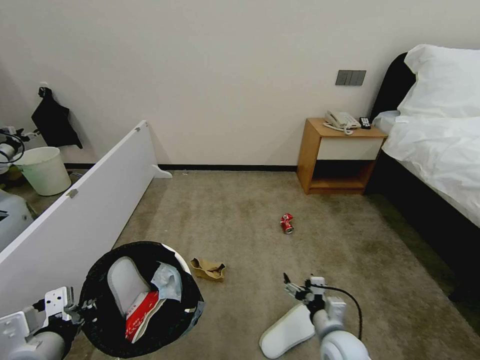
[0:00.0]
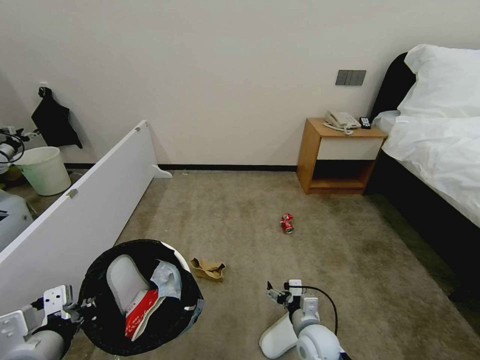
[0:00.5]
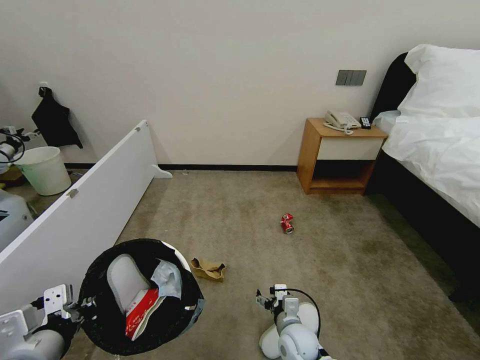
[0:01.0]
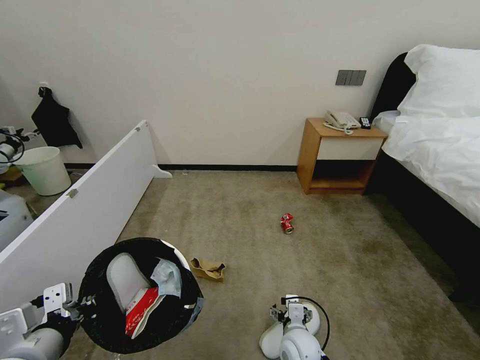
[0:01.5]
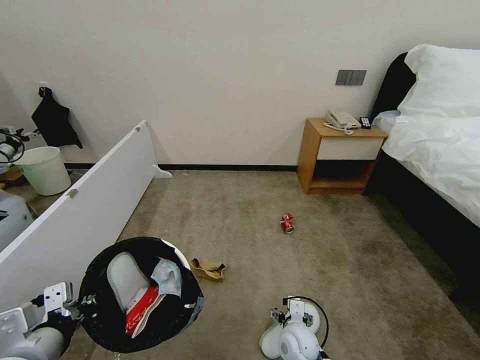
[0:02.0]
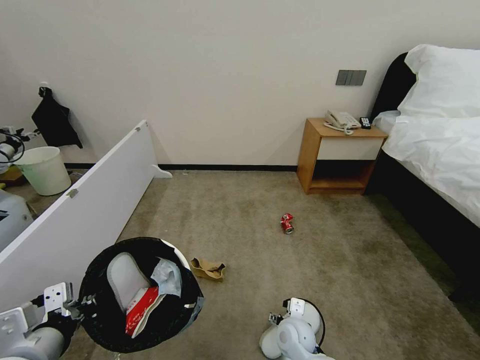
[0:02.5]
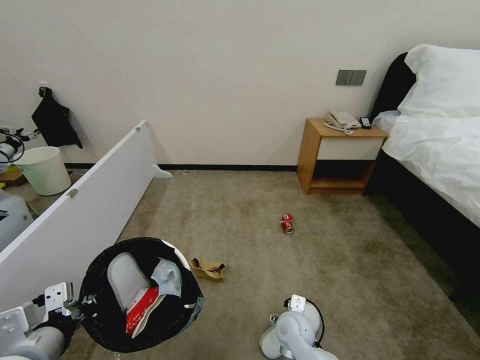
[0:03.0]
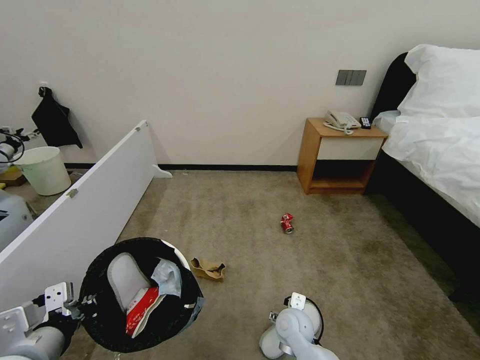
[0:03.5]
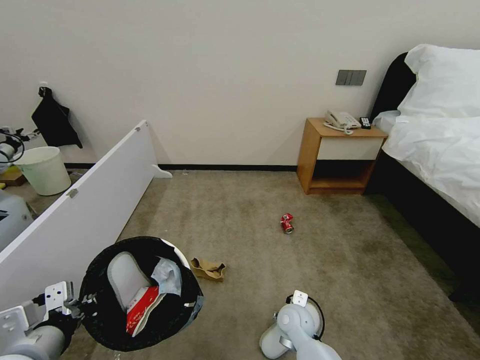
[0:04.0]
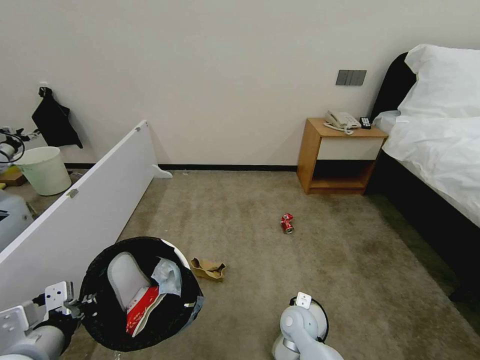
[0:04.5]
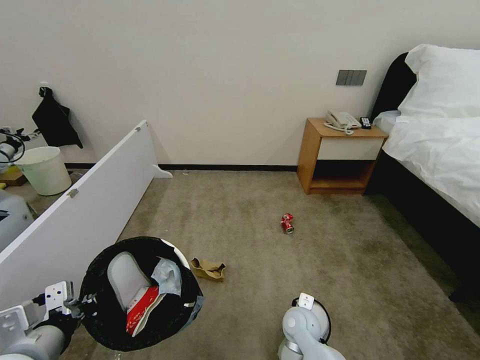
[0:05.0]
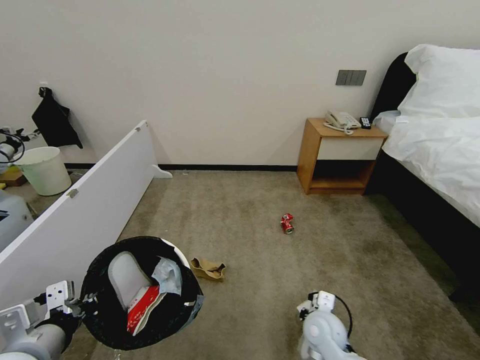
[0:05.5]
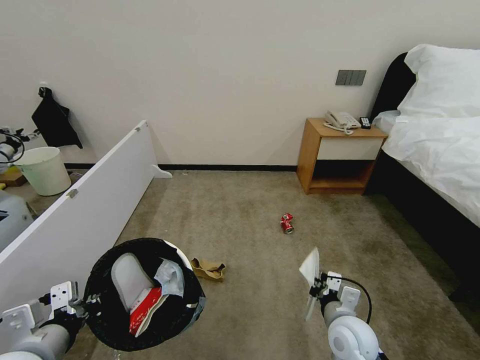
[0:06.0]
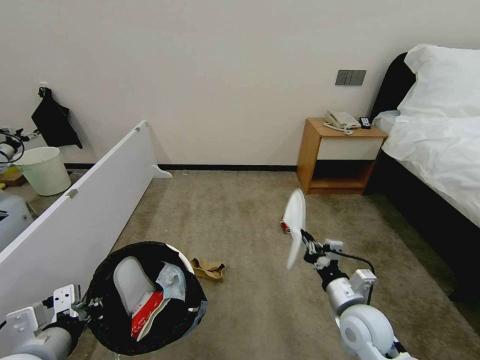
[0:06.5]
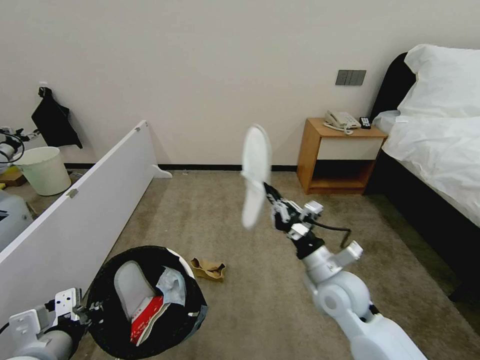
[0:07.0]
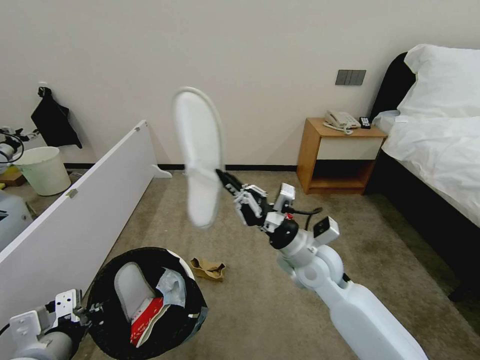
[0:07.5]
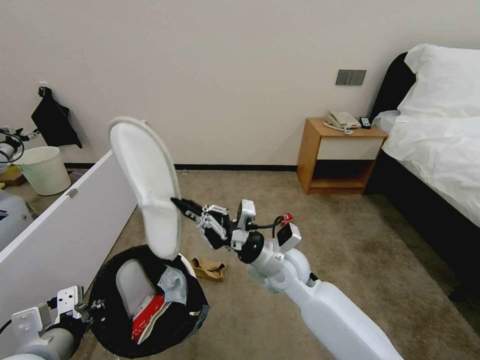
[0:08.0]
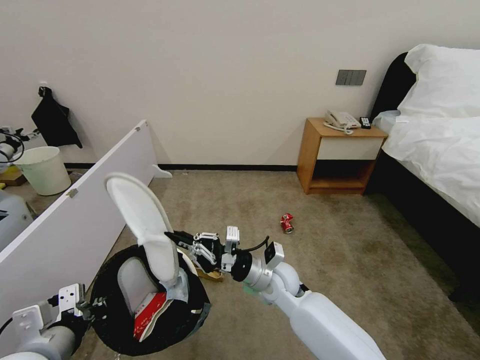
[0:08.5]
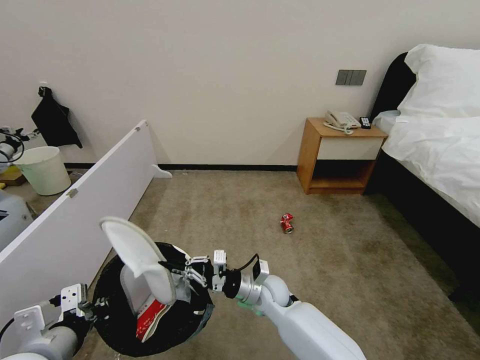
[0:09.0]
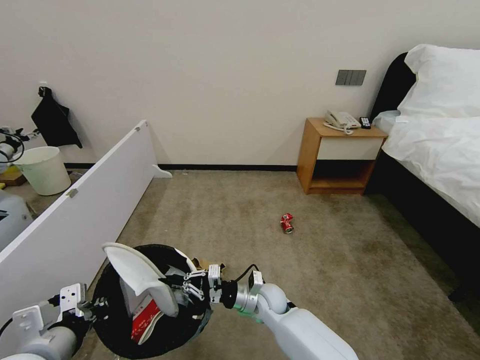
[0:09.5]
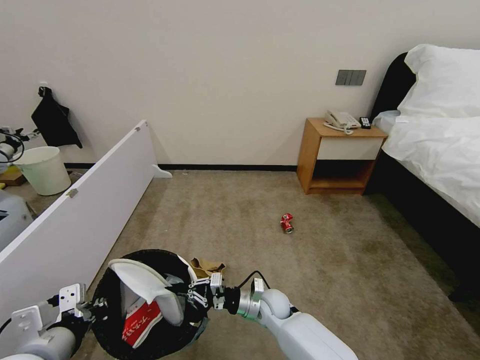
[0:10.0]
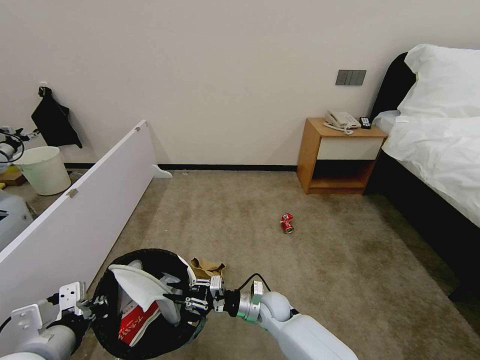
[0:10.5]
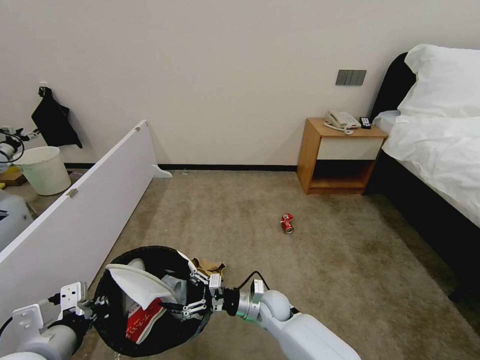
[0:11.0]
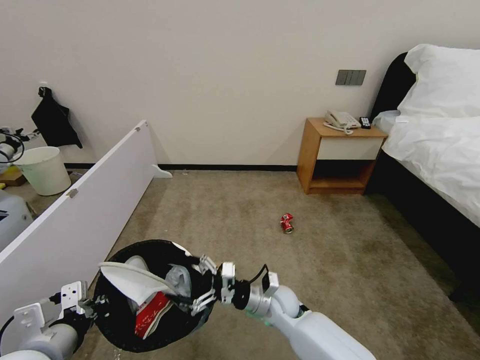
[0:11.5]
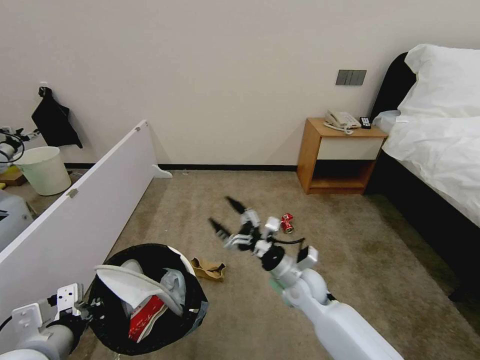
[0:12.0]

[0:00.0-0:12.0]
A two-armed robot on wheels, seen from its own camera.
Task of the whole recording: Pick up the trash bin, then pick up the garbage from the floor and place it into the trash bin.
0.0 to 2.0 s: The right gripper heads to the left, covering some 10 cm.
4.0 to 6.0 s: The right gripper goes some 15 cm to the right, upward and backward, and closes up.
6.0 to 8.0 s: The right gripper moves to the left, upward and forward, approximately 20 cm.
8.0 to 10.0 s: The right gripper goes about 20 cm downward.
10.0 to 12.0 s: The right gripper moves upward and to the right, approximately 15 cm, and opens.

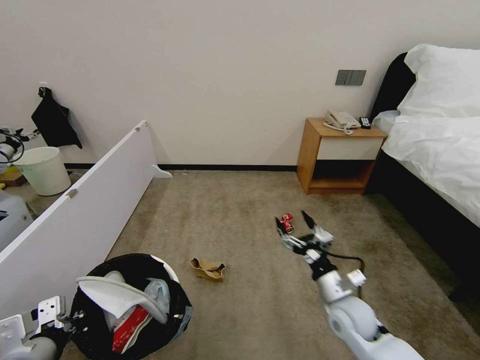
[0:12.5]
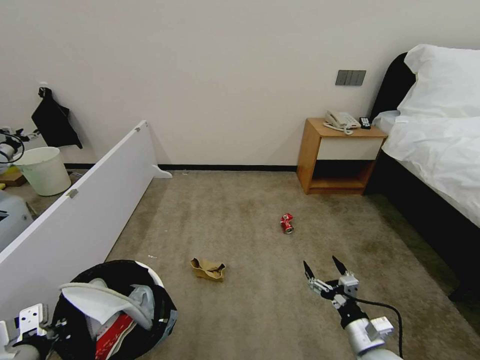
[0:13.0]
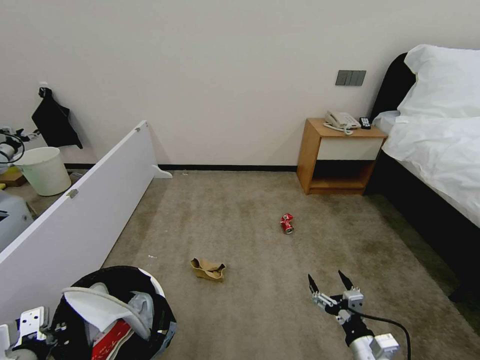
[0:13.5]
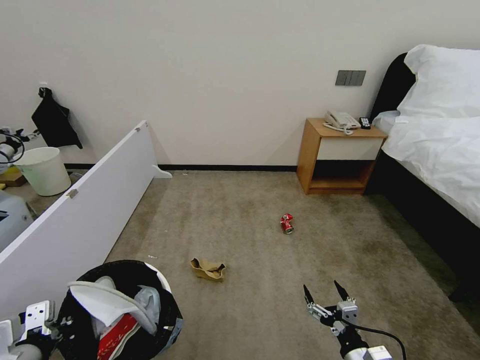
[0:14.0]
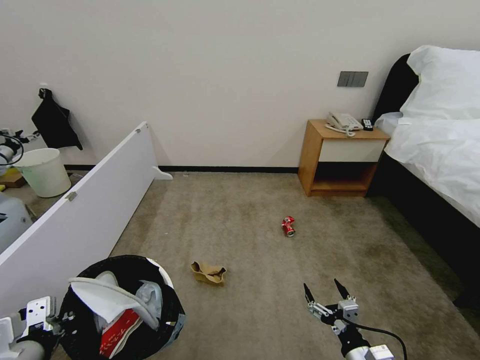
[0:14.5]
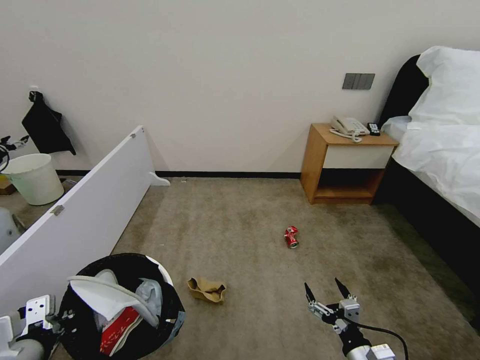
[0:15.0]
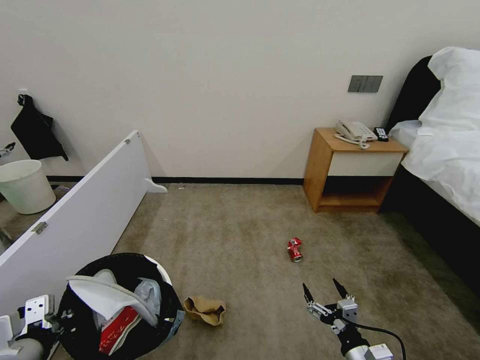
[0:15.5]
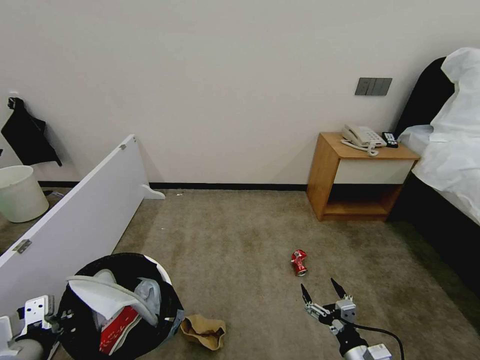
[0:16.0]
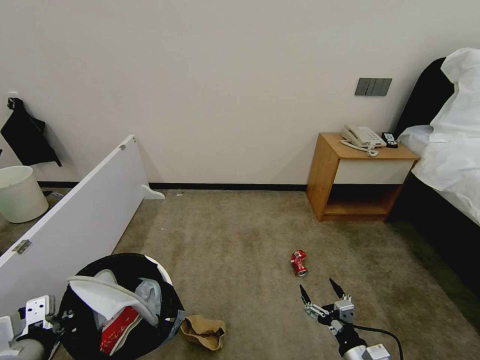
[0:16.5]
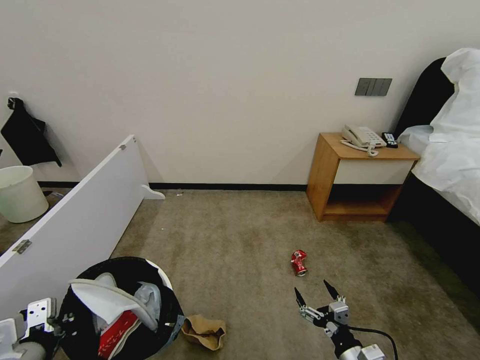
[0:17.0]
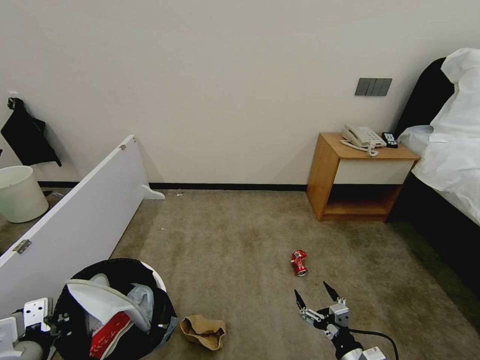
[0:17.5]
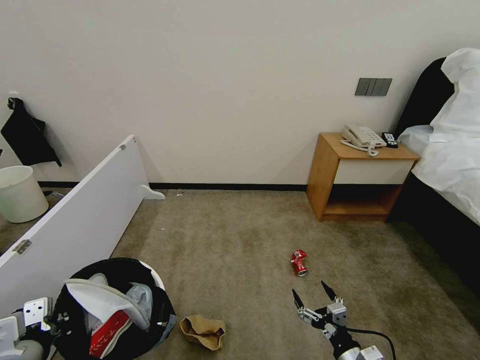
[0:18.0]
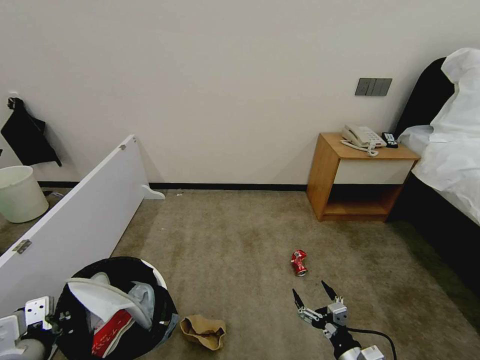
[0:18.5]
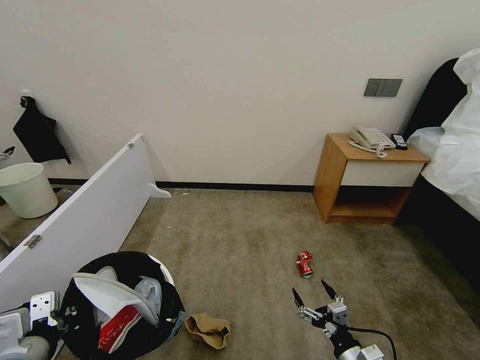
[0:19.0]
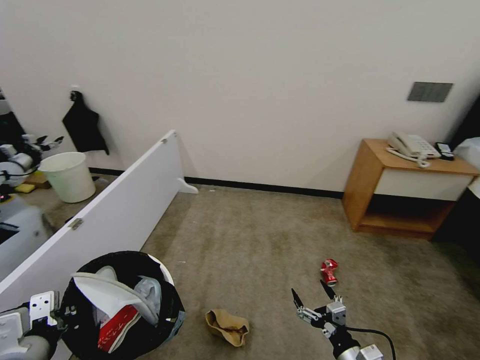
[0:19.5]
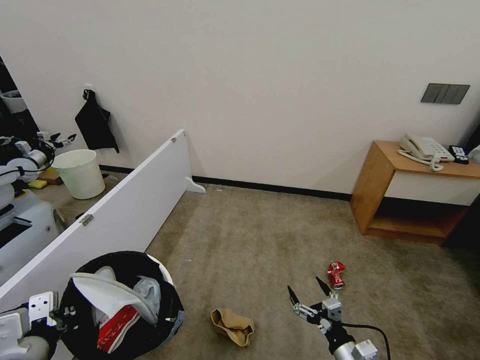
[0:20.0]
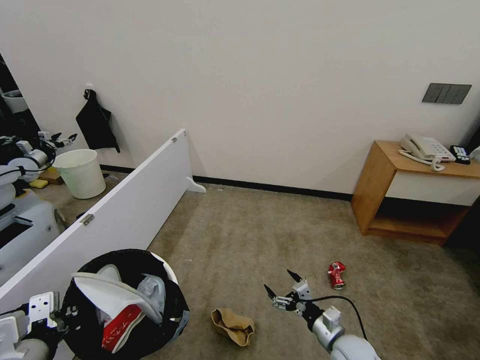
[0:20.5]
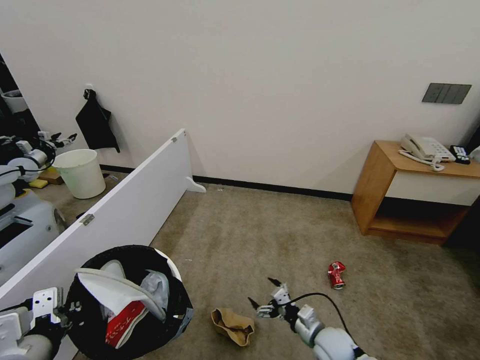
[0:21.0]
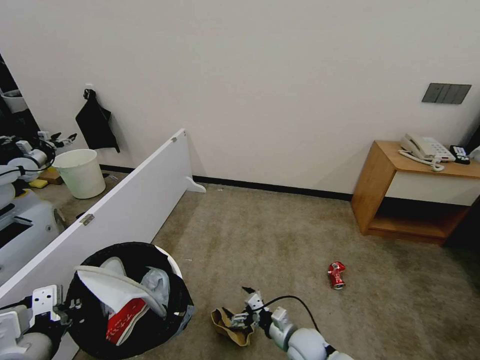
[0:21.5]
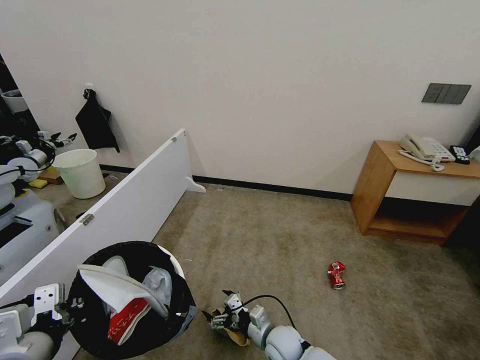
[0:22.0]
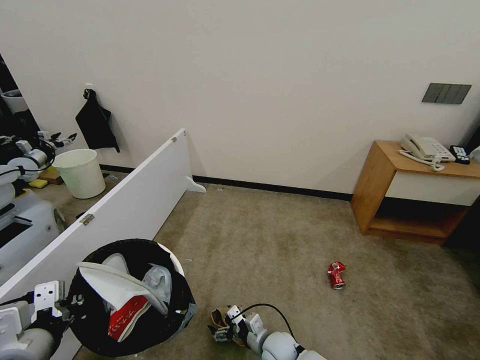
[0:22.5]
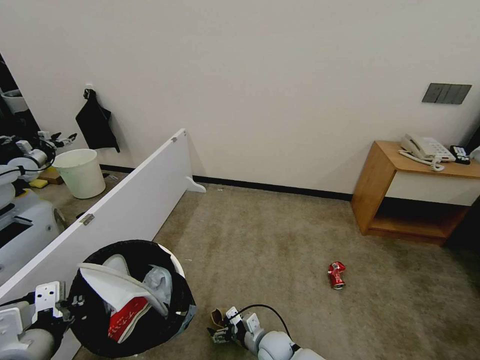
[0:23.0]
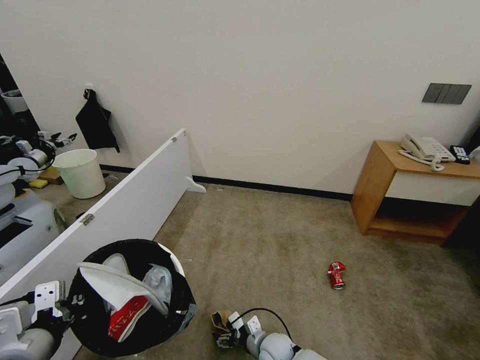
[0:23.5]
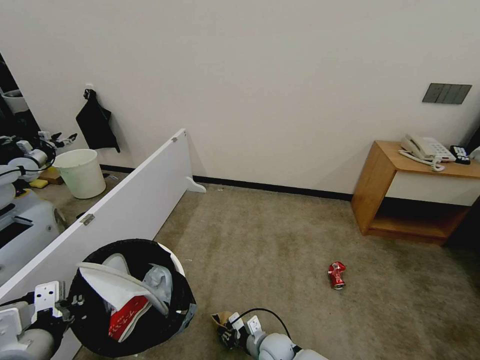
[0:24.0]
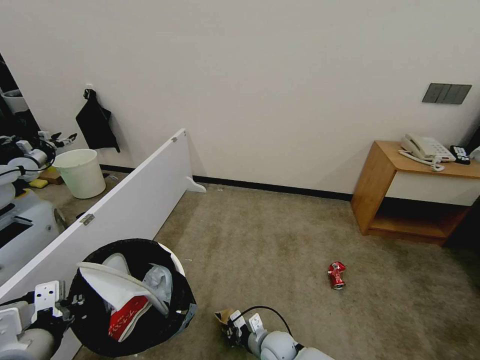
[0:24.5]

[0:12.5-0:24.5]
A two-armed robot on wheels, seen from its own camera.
Task of the whole recording: Pick up the trash bin, then pick up the garbage from the floor and place it into the trash bin.
12.5 to 14.5 s: The right gripper moves backward and downward, roughly 15 cm.
16.5 to 18.5 s: The grippers make only small movements.
18.5 to 20.5 s: The right gripper goes roughly 10 cm forward.
20.5 to 22.5 s: The right gripper travels to the left and downward by about 20 cm.
22.5 to 24.5 s: The right gripper closes.

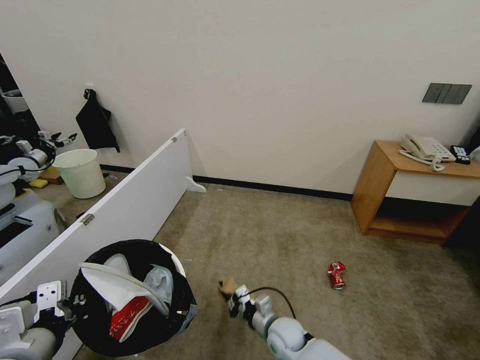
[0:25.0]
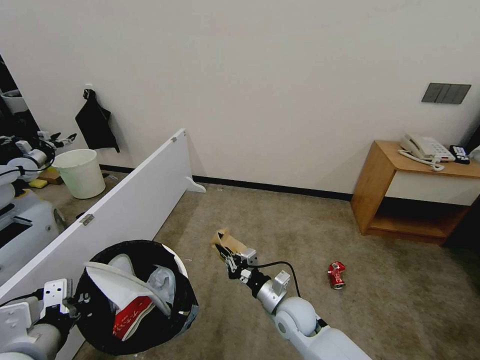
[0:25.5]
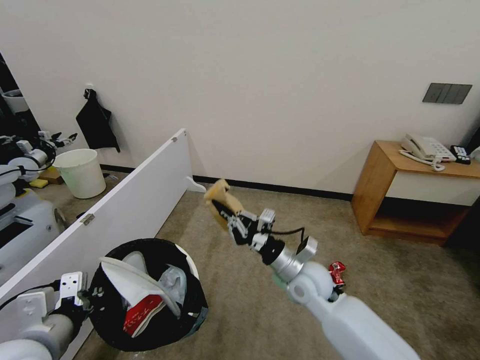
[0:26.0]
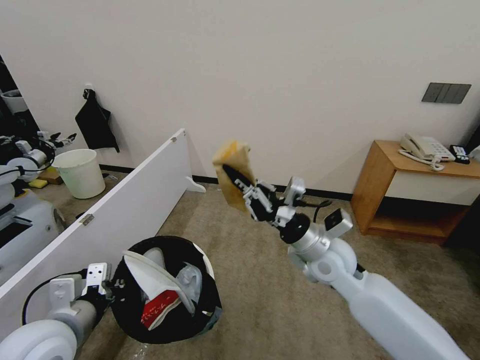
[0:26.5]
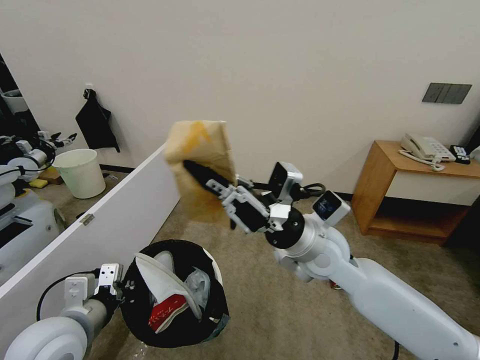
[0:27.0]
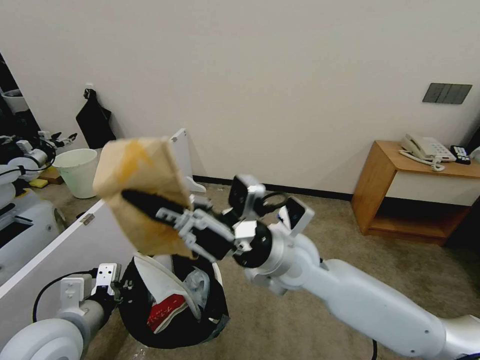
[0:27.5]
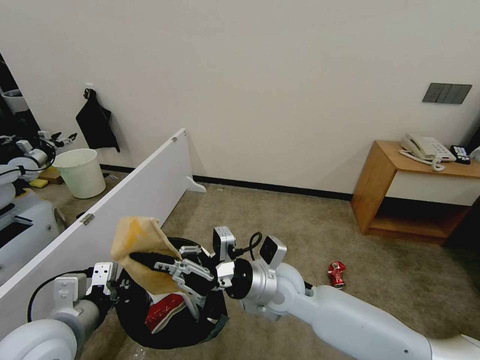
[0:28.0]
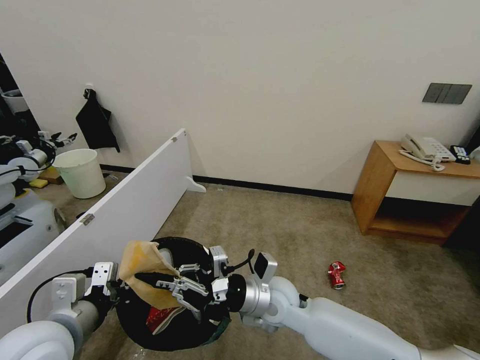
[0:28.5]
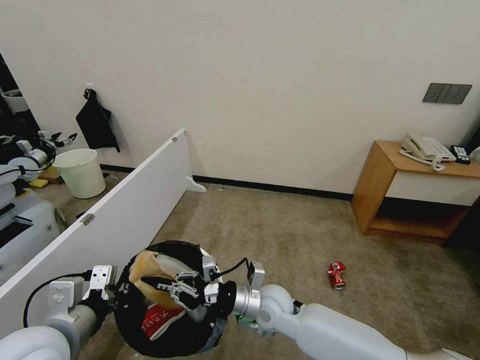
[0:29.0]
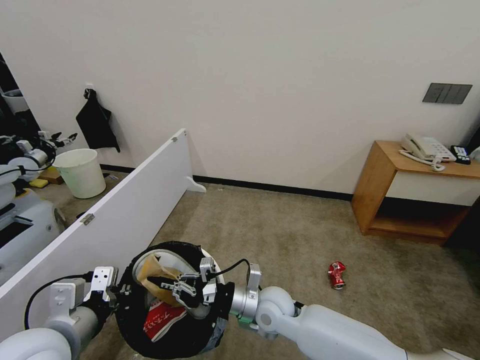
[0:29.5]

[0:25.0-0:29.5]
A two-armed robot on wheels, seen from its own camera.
Task of the whole recording: Pick up the trash bin, then pick up the garbage from the floor and place it into the trash bin.
25.0 to 27.0 s: The left gripper travels forward by approximately 5 cm, while the right gripper shifts roughly 35 cm upward.
27.0 to 29.5 s: The right gripper travels downward by about 20 cm.
